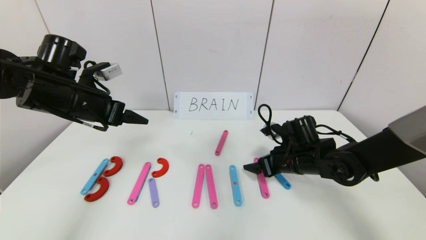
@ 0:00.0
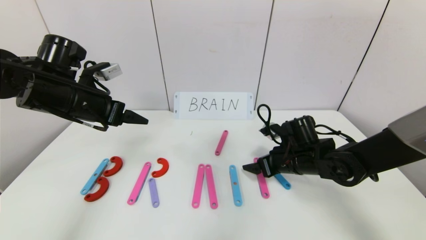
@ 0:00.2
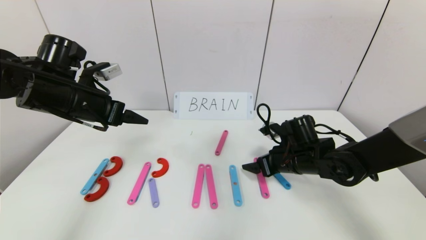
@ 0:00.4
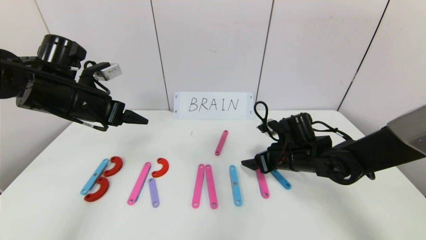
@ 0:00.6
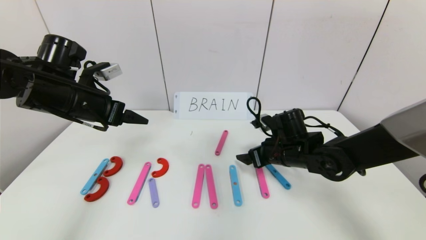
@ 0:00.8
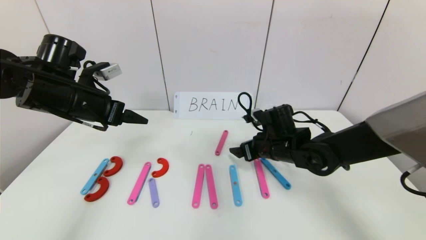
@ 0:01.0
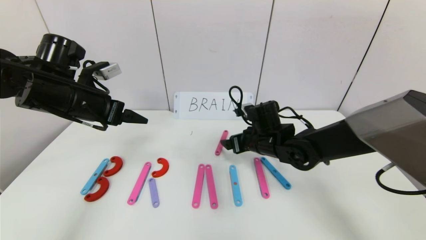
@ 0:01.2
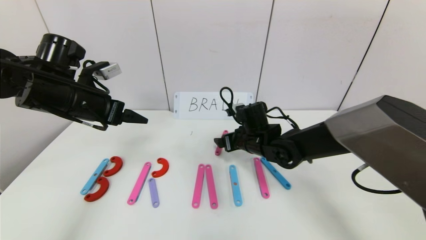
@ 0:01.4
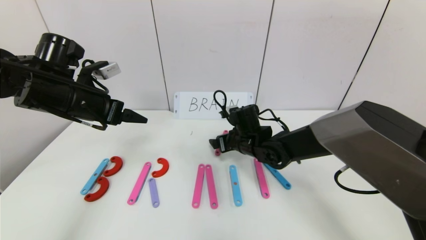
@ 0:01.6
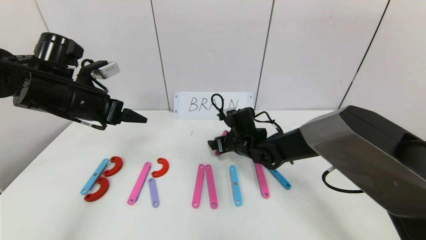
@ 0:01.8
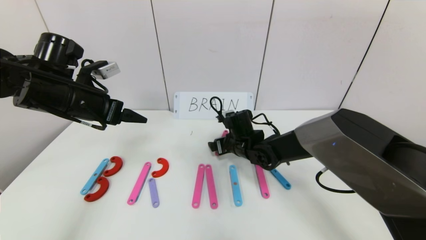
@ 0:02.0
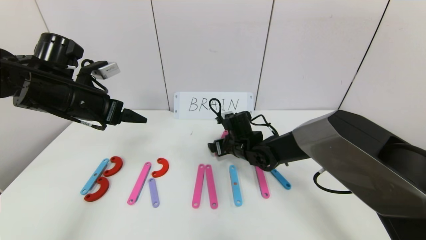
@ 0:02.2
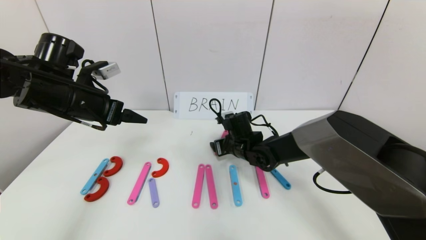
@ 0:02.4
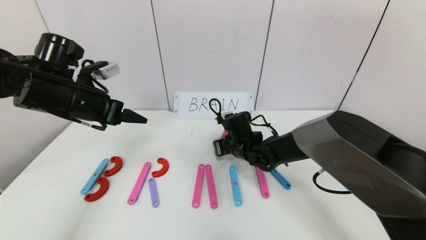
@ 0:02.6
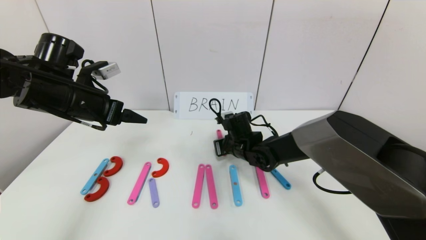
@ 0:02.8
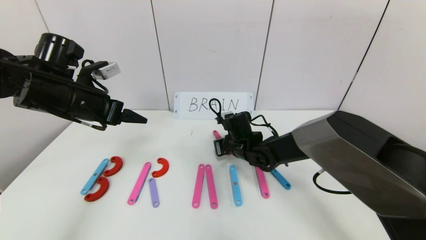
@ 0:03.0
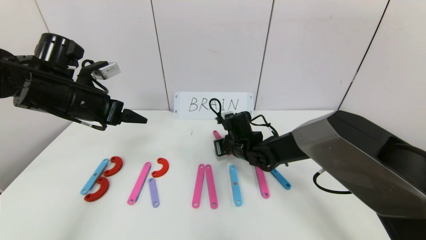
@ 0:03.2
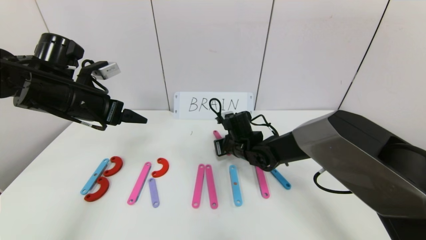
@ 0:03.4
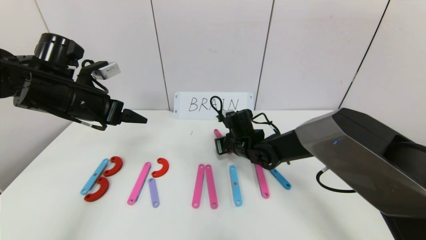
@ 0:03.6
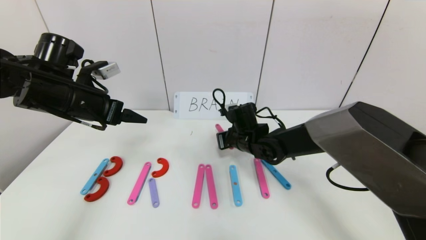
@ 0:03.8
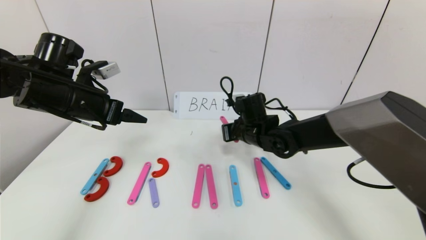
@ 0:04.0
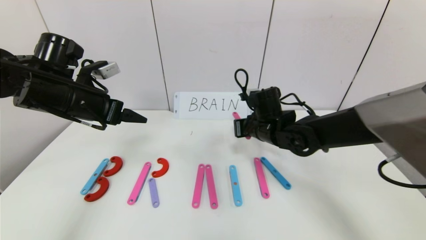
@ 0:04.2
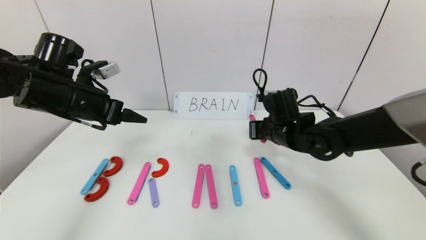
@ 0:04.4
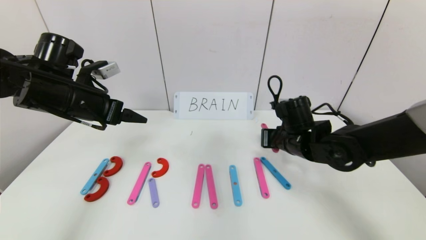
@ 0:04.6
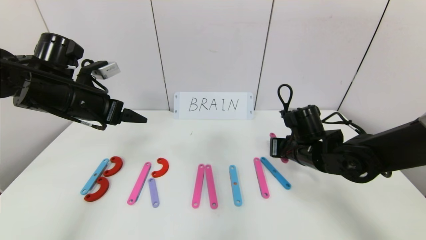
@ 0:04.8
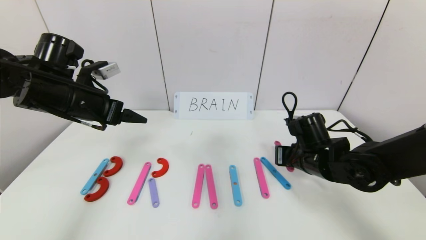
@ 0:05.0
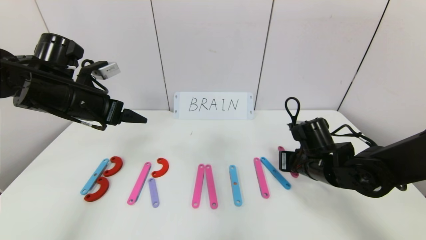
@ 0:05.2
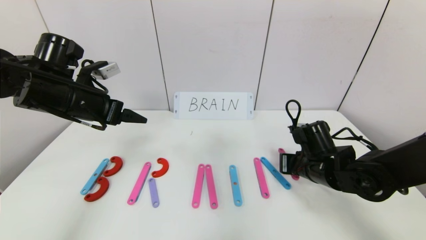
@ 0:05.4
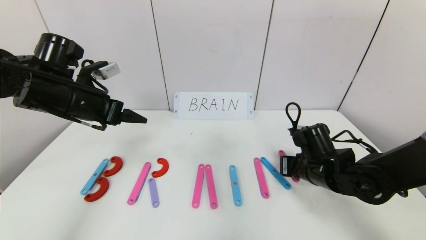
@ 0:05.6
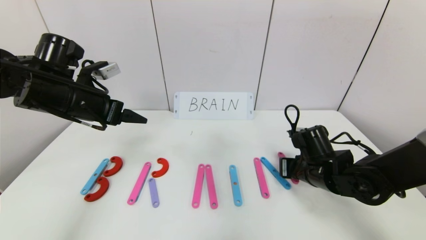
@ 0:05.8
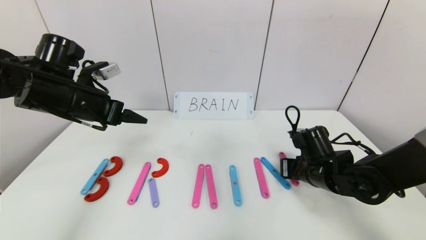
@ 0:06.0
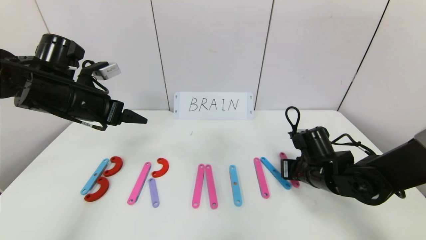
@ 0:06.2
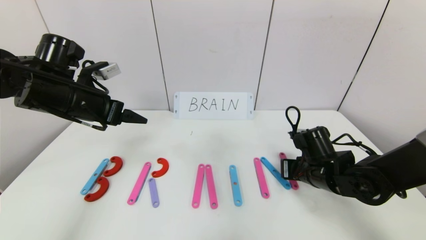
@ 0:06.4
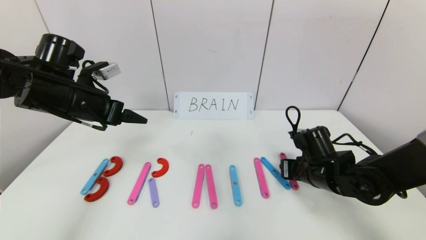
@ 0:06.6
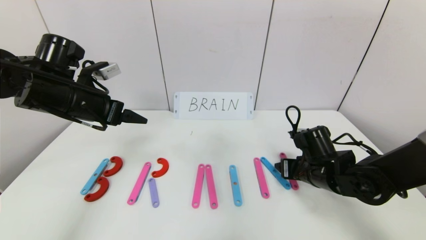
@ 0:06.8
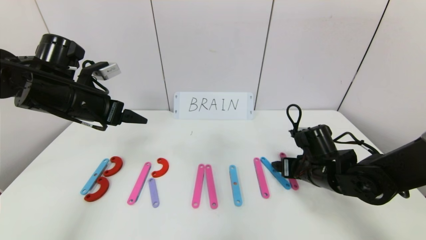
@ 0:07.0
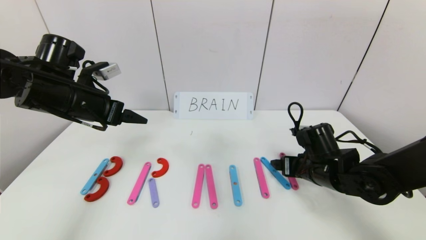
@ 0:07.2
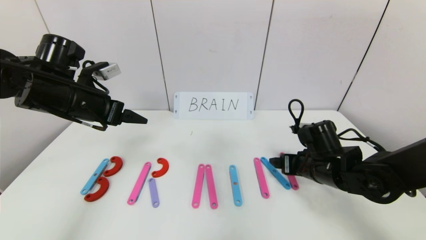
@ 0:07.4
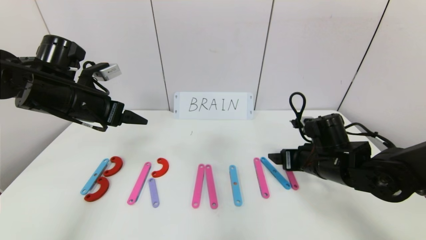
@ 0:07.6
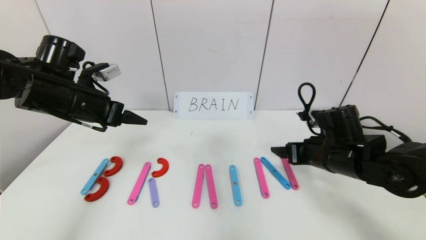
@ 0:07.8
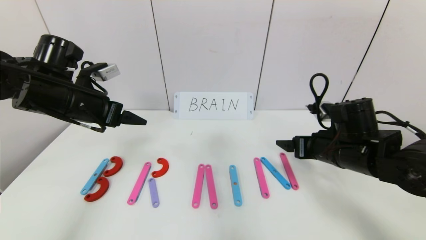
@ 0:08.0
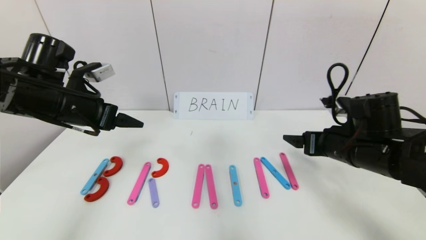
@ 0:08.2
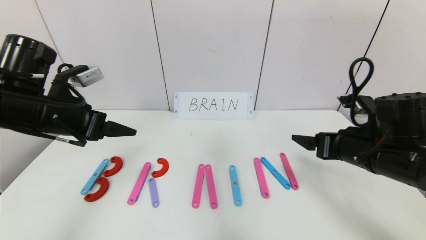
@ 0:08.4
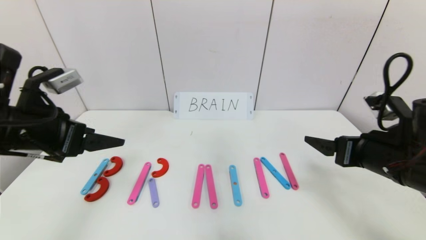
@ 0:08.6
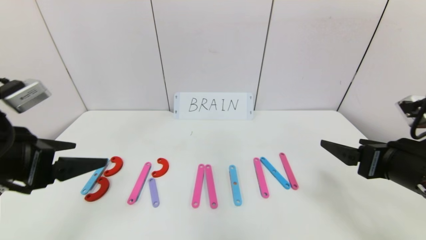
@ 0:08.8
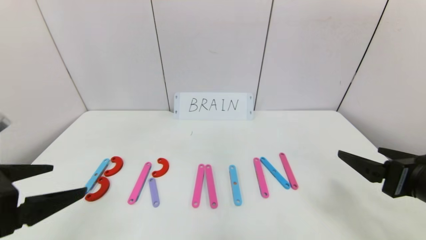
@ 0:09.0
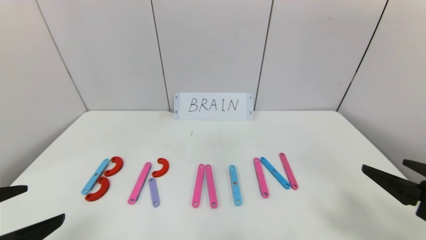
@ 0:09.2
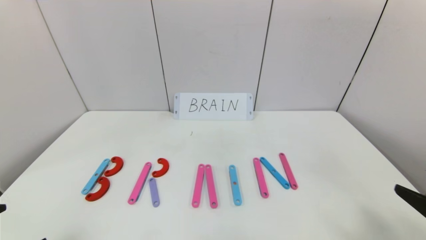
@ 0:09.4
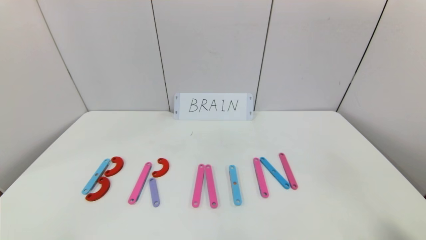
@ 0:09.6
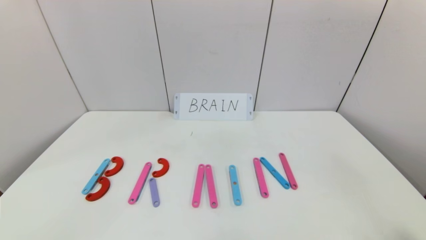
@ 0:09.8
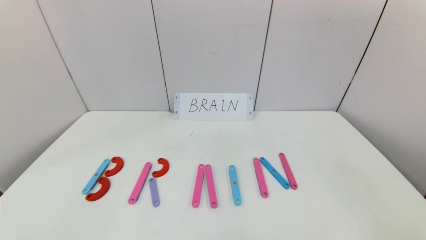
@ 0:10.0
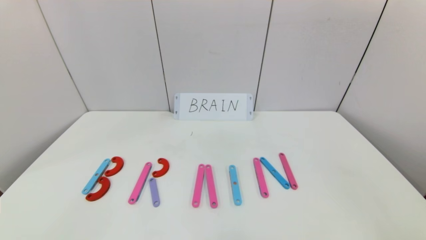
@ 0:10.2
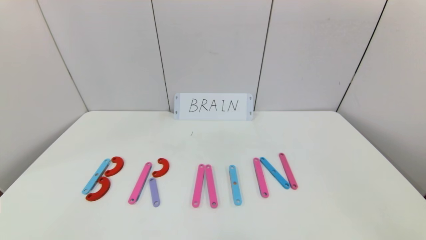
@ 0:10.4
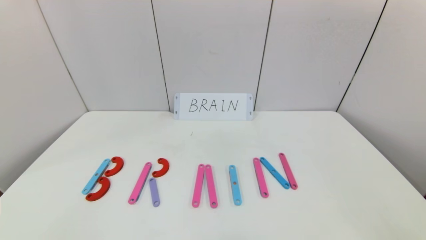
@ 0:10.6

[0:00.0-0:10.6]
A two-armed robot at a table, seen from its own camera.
Task of the whole recording: rearrange the word baai as brain.
Step, 0:00.0 to 0:06.6: Place the character N after character I.
0:00.0 to 0:01.6: The right gripper goes about 15 cm to the left and forward.
0:01.6 to 0:03.0: The right gripper closes.
0:03.0 to 0:04.6: The right gripper shifts approximately 15 cm to the right, upward and backward.
0:04.6 to 0:06.0: The right gripper moves downward, some 5 cm.
0:06.0 to 0:07.6: The right gripper opens up.
0:07.6 to 0:09.0: The right gripper moves backward, upward and to the right, roughly 20 cm. Meanwhile the left gripper heads backward, covering roughly 20 cm.
0:09.0 to 0:10.6: The left gripper goes about 20 cm backward and downward; the right gripper goes roughly 20 cm backward.

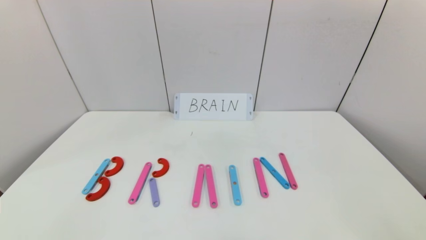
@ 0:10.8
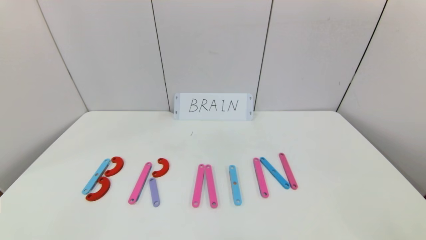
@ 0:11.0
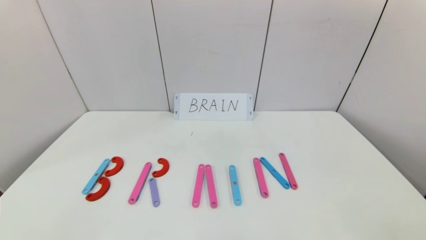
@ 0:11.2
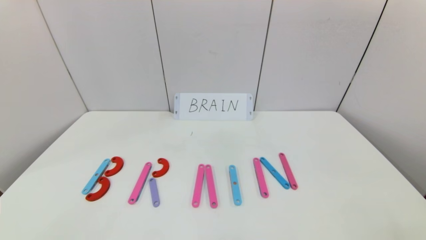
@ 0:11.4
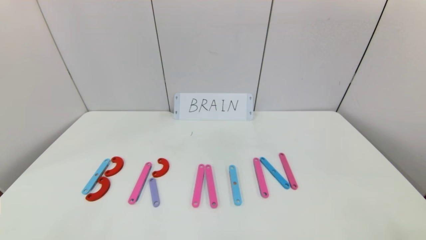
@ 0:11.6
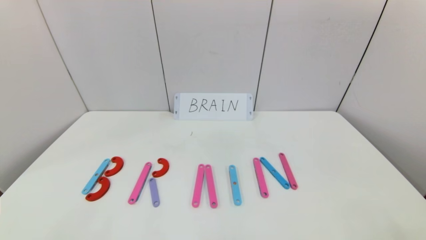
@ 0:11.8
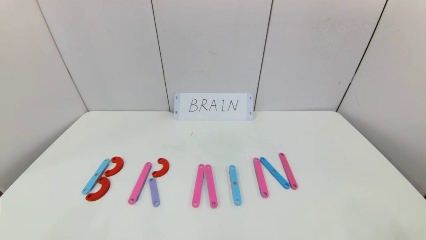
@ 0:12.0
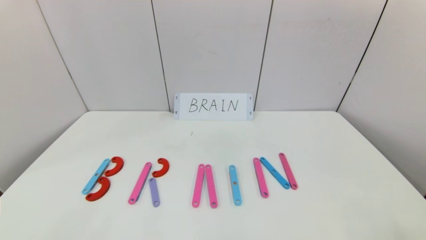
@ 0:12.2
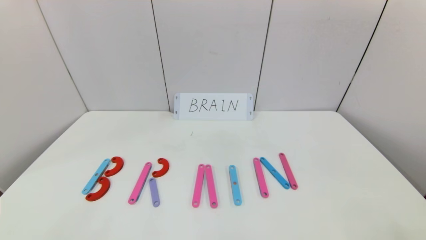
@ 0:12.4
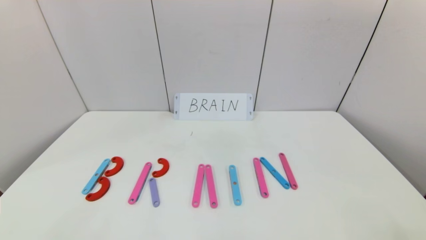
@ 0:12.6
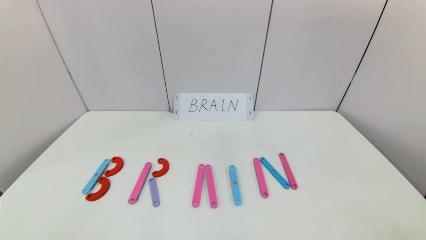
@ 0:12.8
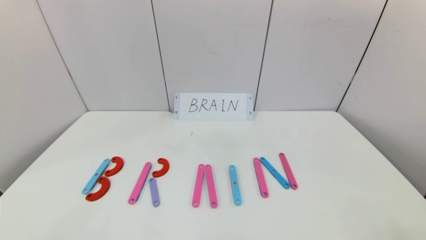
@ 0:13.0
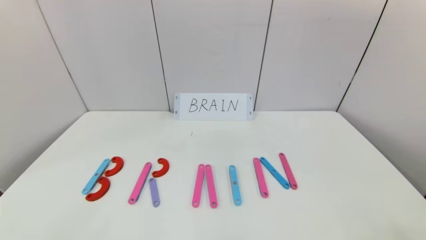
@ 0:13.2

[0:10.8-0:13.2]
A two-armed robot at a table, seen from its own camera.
Task of the whole recording: rearrange the word baai as brain.
0:12.0 to 0:13.2: The two grippers keep their place.
